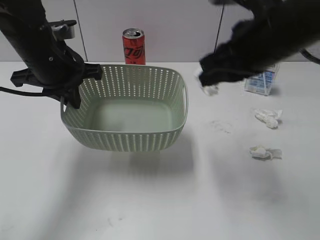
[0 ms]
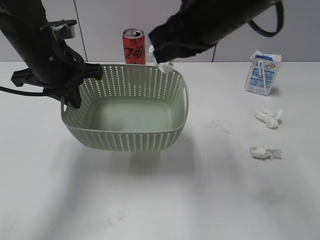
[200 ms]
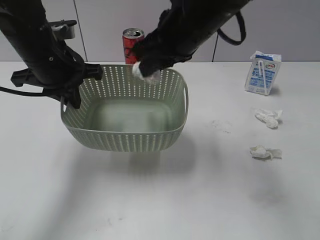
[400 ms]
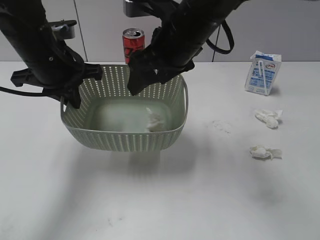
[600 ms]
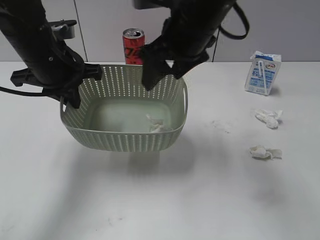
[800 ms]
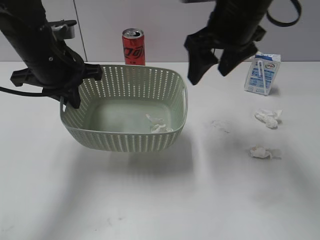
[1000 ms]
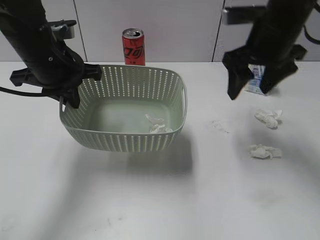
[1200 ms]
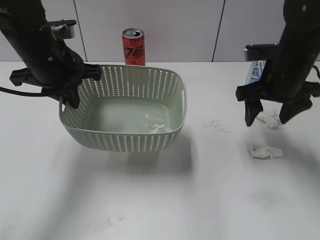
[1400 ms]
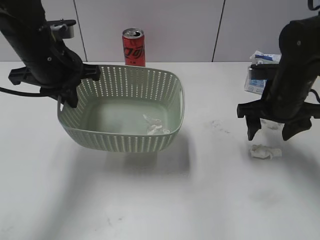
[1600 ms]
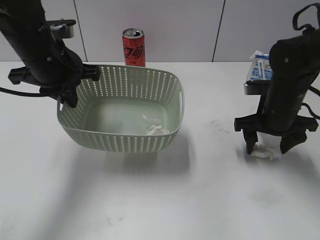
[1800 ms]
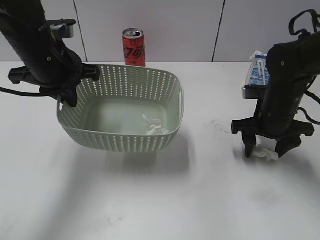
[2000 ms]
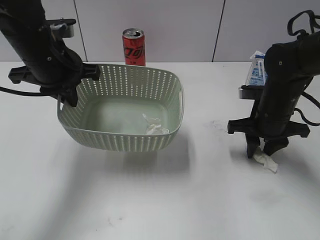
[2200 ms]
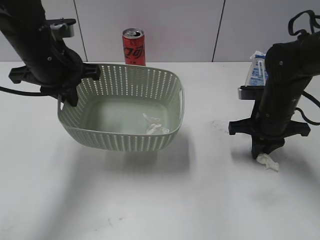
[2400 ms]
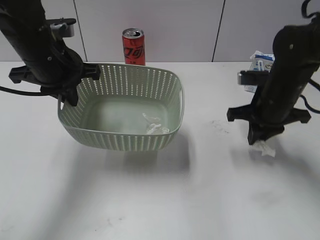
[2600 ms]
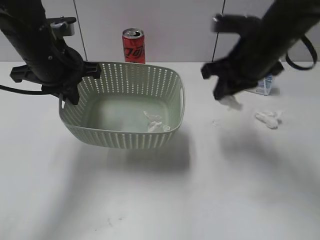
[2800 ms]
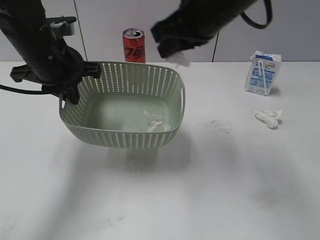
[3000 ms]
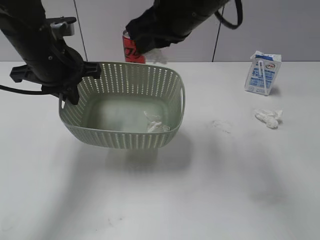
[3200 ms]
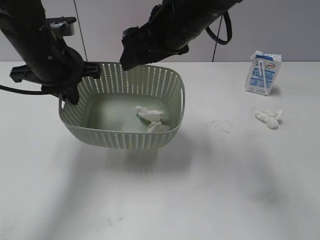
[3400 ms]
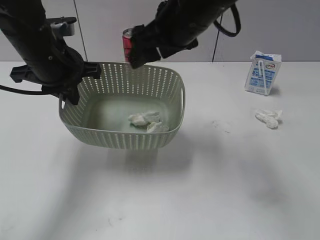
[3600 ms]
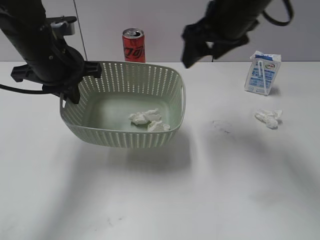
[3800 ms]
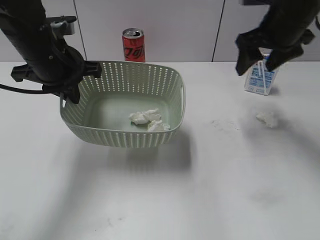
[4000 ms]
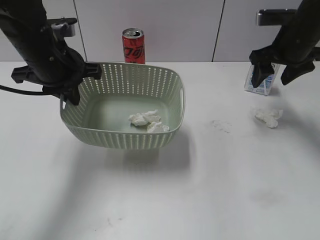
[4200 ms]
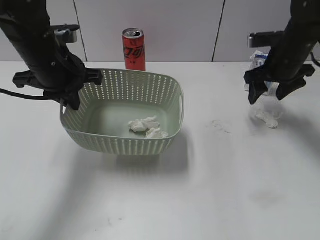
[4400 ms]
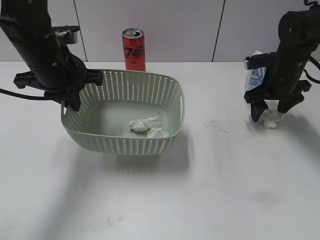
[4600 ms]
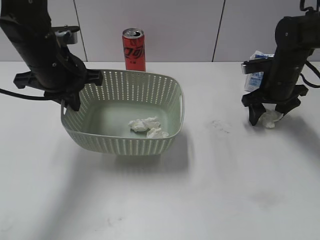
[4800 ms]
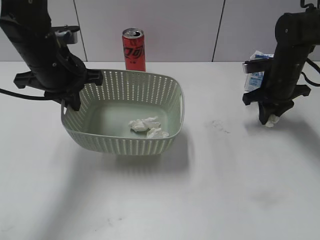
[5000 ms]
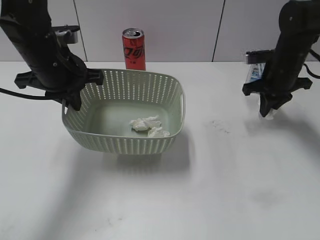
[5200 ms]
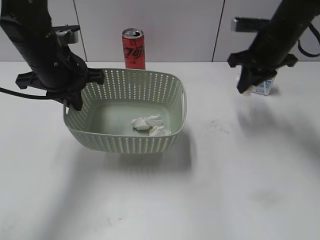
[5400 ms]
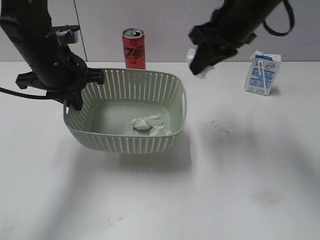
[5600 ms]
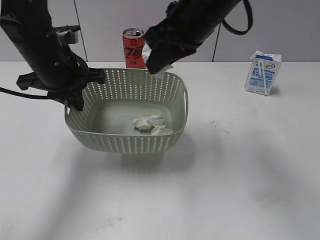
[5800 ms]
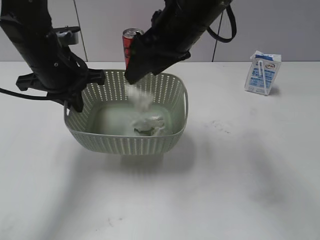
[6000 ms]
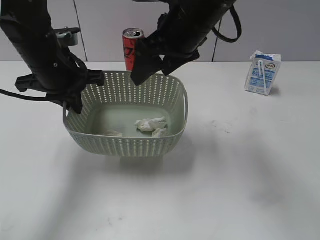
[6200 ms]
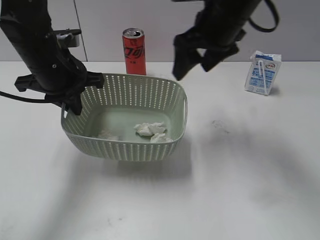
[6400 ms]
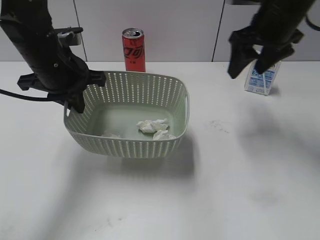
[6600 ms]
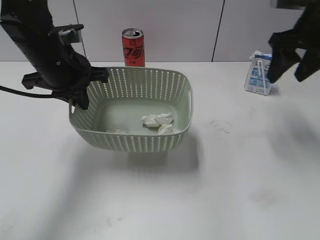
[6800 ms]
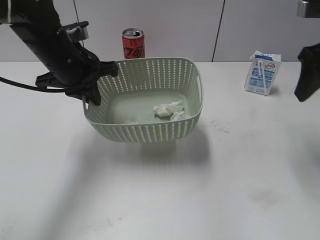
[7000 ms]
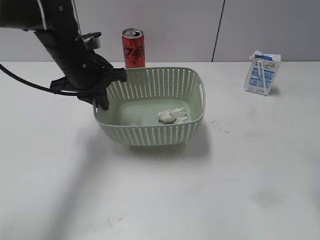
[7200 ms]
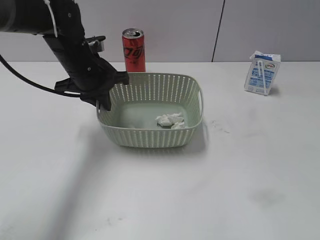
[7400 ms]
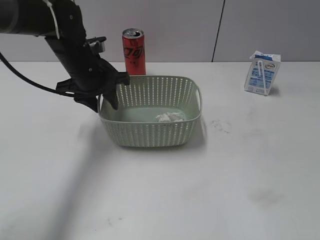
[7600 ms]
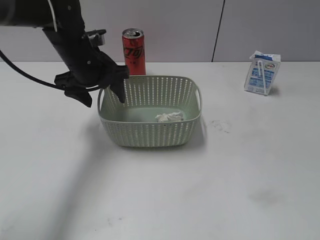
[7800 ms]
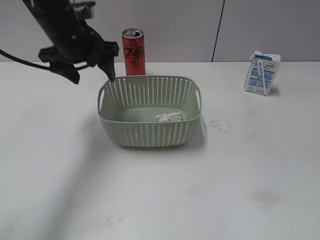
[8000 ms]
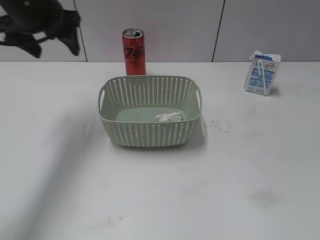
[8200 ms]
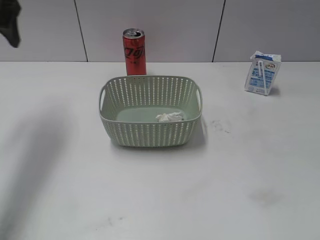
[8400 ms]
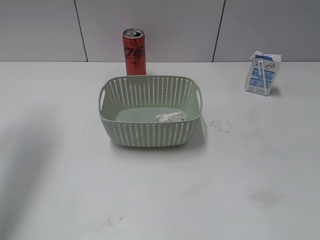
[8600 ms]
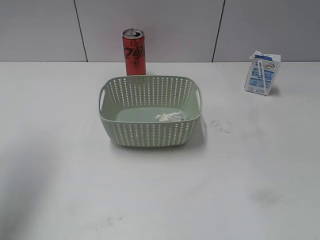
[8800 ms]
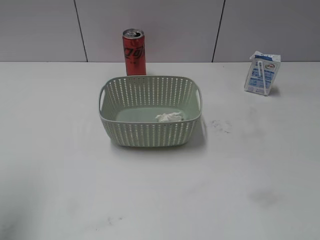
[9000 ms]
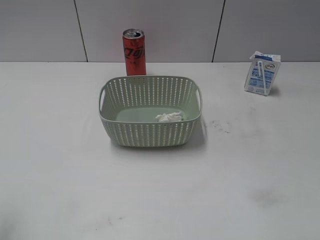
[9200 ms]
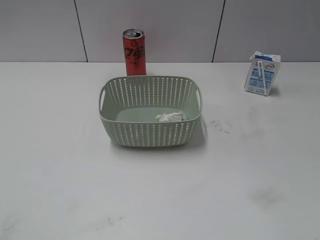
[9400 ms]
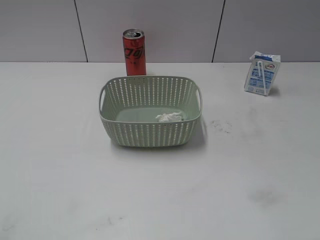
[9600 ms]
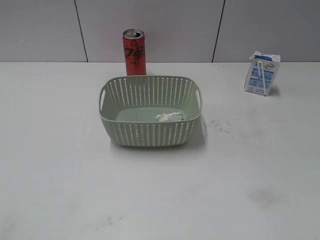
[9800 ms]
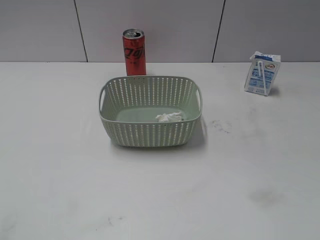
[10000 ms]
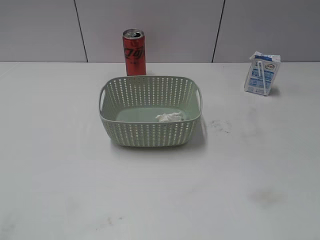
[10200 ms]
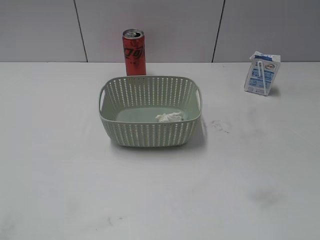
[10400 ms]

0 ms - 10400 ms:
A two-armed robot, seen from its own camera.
Step, 0 ms - 800 ms: Place the waste paper in the basket with right gripper.
Step, 1000 ms - 2400 ms: Grasp the waste paper with right gripper.
Step, 2600 ms - 3400 ms: Place the waste paper in the basket with right gripper.
Step, 3600 ms - 5200 ms: Grasp the waste paper with right gripper.
Step, 5400 ms - 6000 ms: Place the waste paper in the basket with right gripper.
Step, 6200 ms - 7800 ms: Place the basket on the table with left gripper.
0 ms - 1400 ms: The right gripper travels downward, forward and to the right by roughly 15 cm, and opens up.
1400 ms - 3000 ms: The right gripper goes about 15 cm to the left and upward, and closes.
3000 ms - 4400 ms: The right gripper travels to the right, downward and forward by some 25 cm, and opens up.
4400 ms - 6000 ms: The right gripper is displaced to the left, upward and backward by roughly 25 cm, and closes and opens again.
6000 ms - 7400 ms: The left gripper changes place by about 5 cm; the right gripper travels to the right and backward by approximately 30 cm.
7400 ms - 9000 ms: The left gripper shifts approximately 30 cm upward, backward and to the left, and opens. The right gripper moves backward, roughly 15 cm.
9000 ms - 10400 ms: The left gripper heads backward and downward, covering about 20 cm.

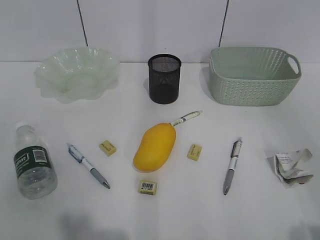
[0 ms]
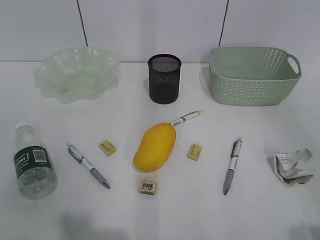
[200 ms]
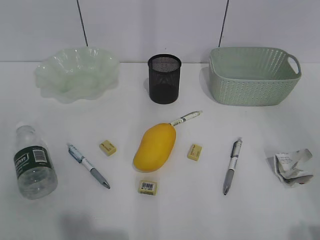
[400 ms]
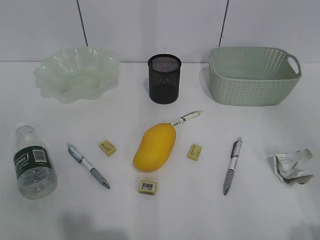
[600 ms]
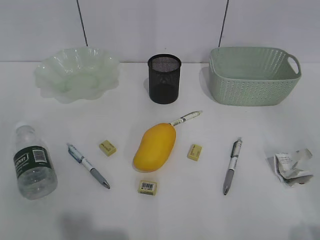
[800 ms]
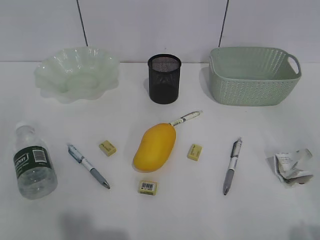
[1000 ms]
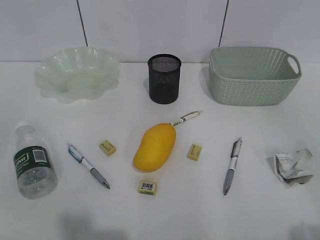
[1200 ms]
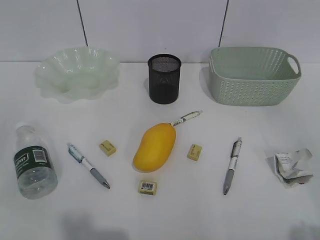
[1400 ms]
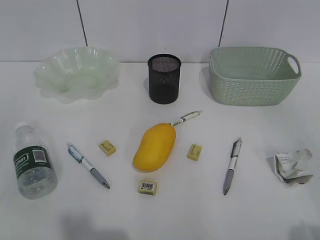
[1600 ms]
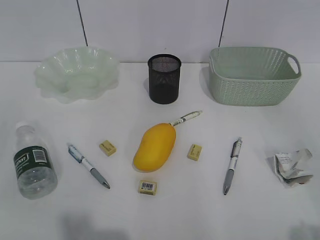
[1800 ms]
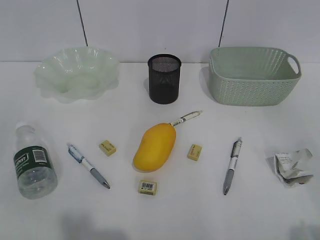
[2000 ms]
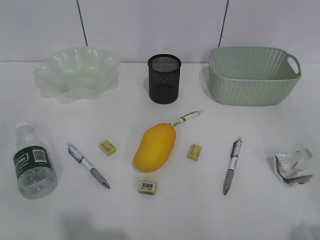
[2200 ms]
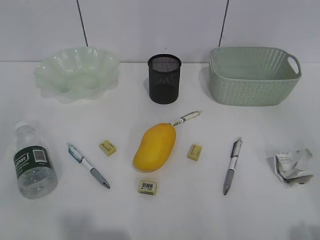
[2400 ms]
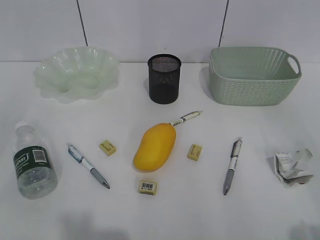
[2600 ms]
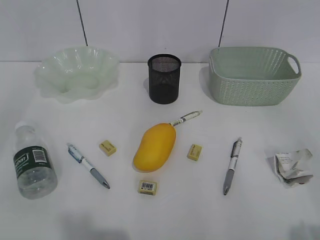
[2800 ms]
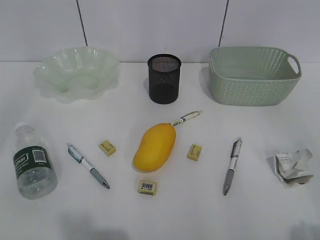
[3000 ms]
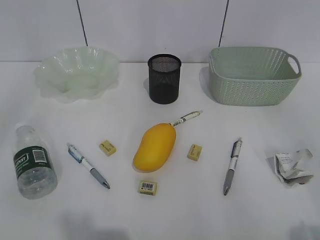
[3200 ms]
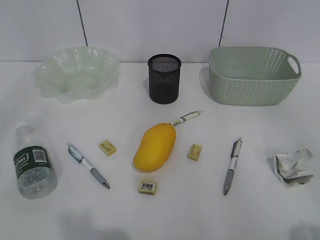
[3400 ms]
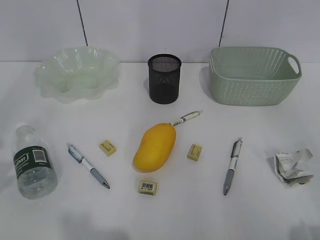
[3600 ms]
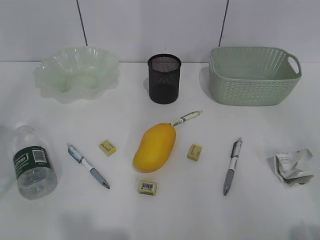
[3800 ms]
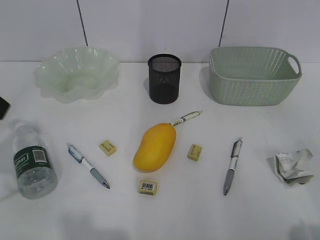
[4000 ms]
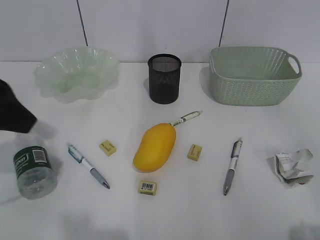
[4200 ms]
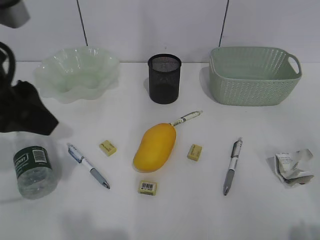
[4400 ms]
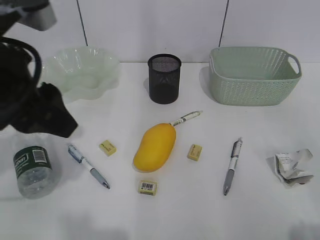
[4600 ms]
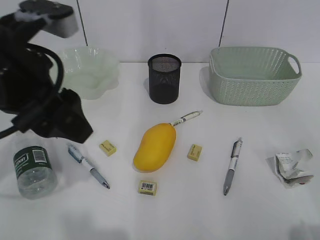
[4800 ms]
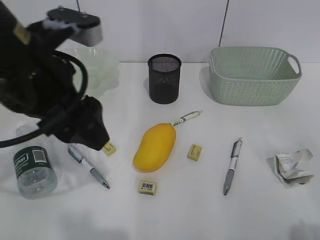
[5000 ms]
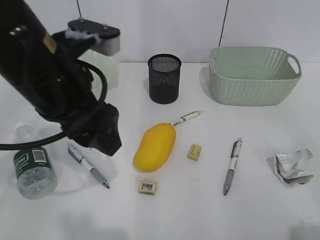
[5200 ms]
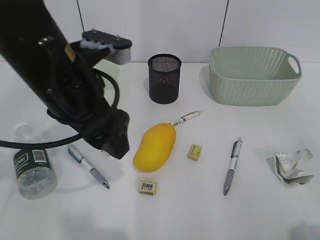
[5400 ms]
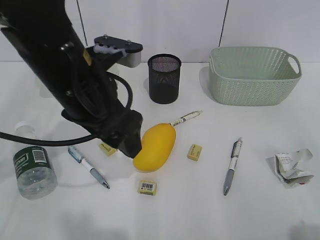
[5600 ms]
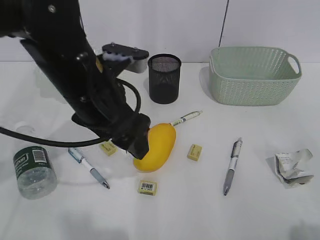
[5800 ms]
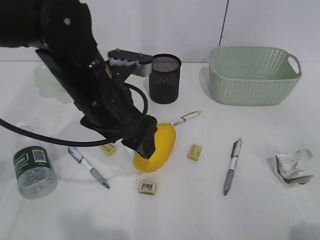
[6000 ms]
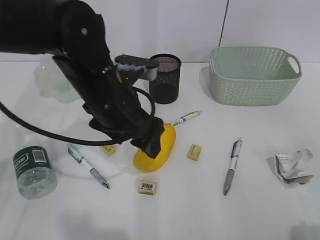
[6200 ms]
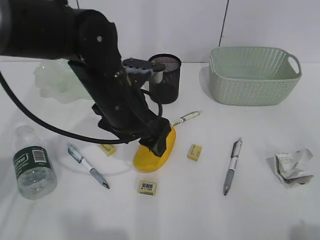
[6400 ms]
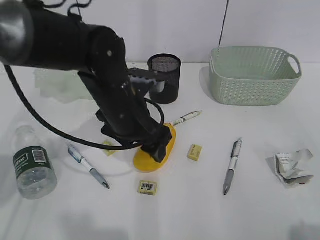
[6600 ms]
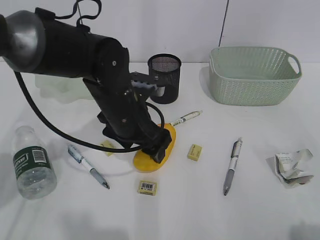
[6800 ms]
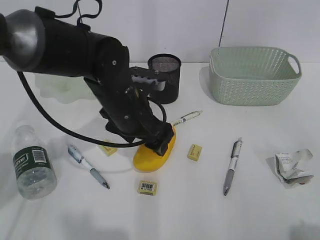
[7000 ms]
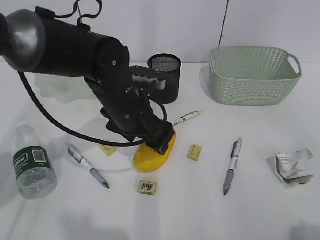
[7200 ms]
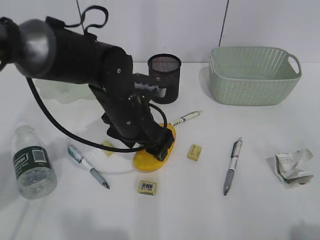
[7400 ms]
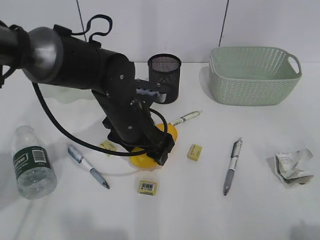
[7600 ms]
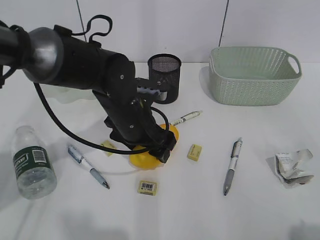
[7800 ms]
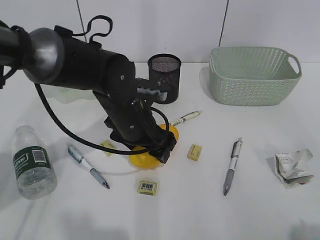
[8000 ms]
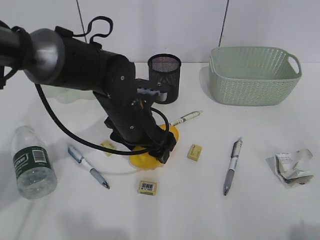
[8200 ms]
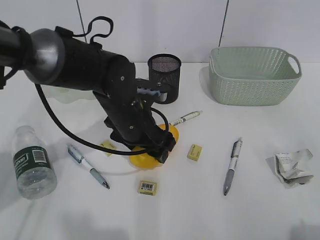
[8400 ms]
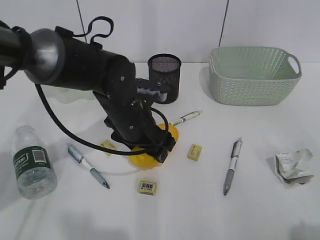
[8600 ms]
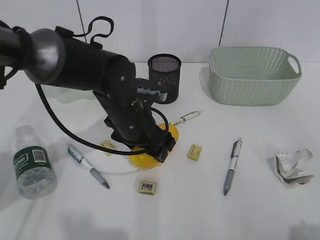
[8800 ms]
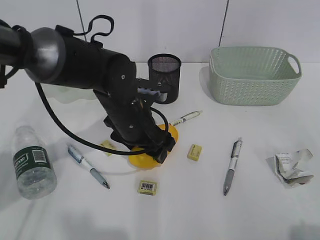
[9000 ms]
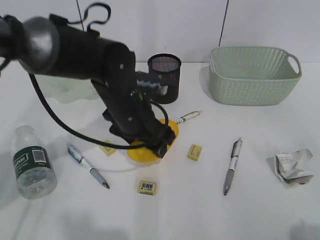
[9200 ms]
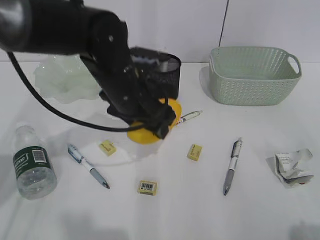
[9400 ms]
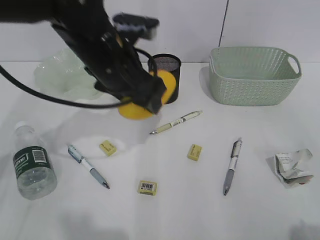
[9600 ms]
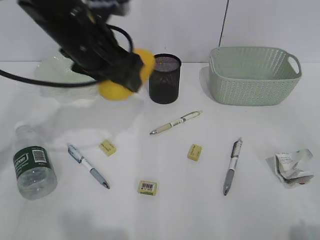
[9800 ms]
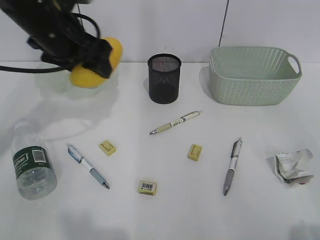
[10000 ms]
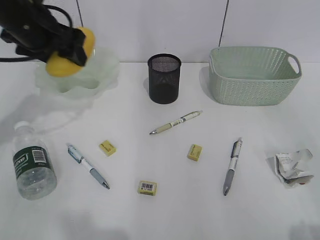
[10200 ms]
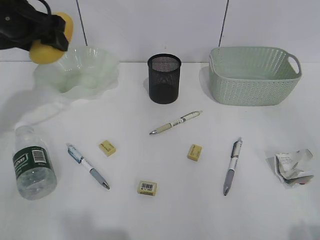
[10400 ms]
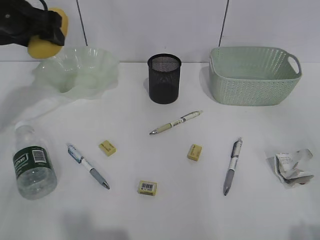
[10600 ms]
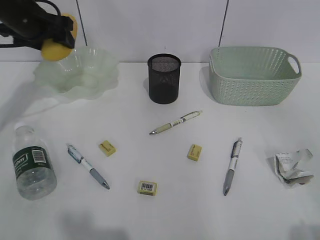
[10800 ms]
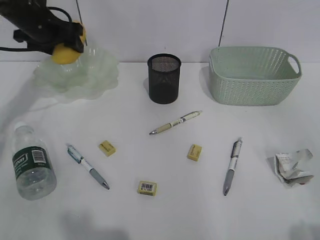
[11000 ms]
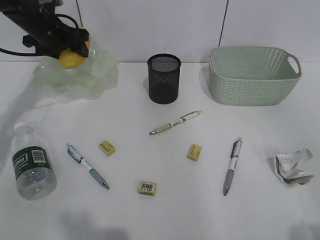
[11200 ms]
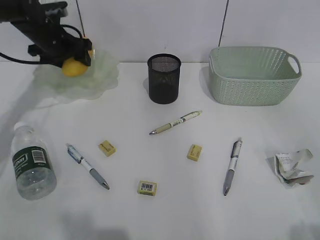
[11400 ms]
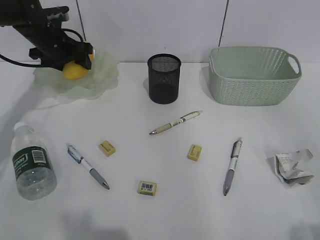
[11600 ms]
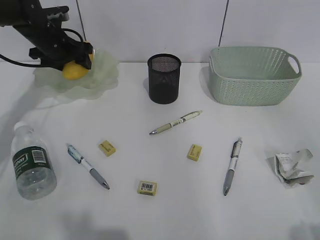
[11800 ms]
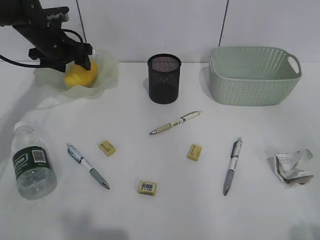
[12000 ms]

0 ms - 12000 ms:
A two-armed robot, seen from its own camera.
Step, 4000 ms - 8800 ms: Grasp the mango with left gripper.
3000 ms - 4400 ms: The left gripper travels forward and to the right by some 20 cm.
4400 ms - 6000 ms: The left gripper heads to the right, downward and forward, covering about 15 cm.
6000 ms - 7600 ms: The left gripper shifts about 10 cm downward.
7600 ms - 9000 ms: The two grippers keep their place.
9000 ms - 10400 ms: The left gripper moves to the left, upward and forward, roughly 25 cm.
10400 ms - 12000 ms: The left gripper travels forward and downward by roughly 15 cm.
